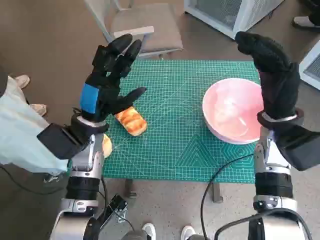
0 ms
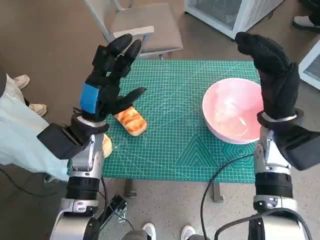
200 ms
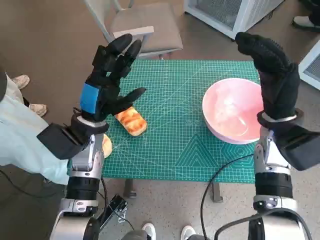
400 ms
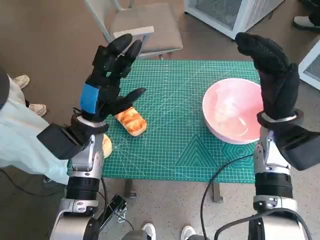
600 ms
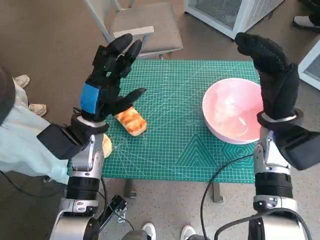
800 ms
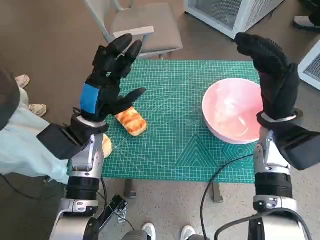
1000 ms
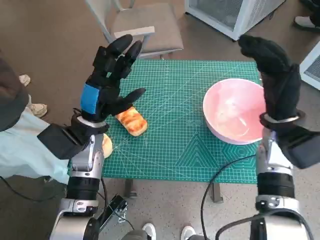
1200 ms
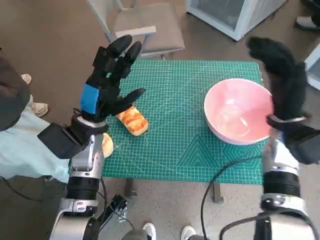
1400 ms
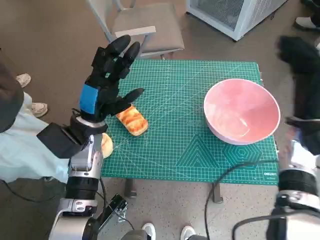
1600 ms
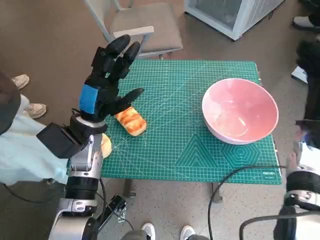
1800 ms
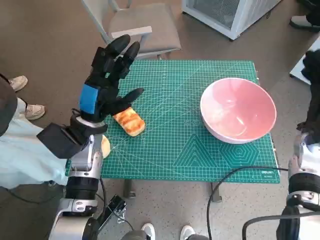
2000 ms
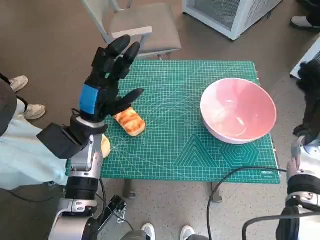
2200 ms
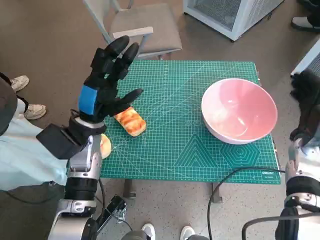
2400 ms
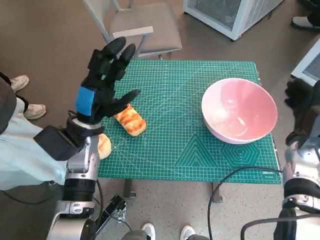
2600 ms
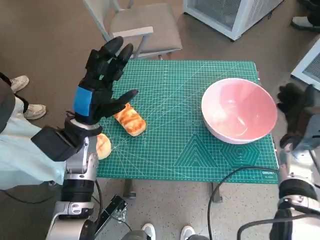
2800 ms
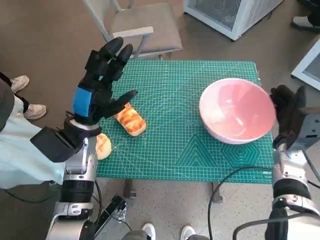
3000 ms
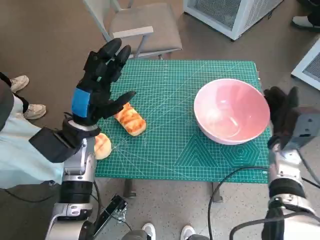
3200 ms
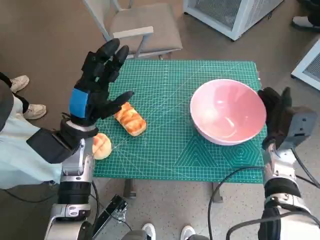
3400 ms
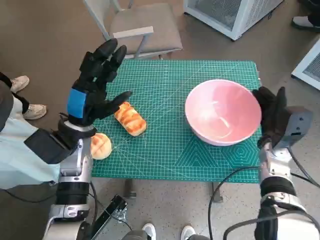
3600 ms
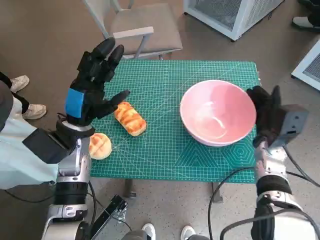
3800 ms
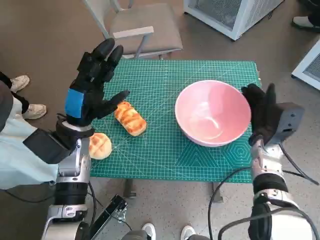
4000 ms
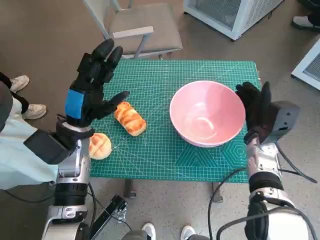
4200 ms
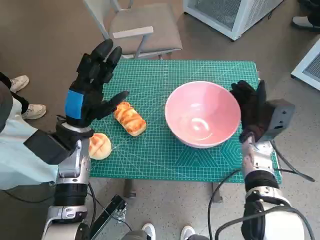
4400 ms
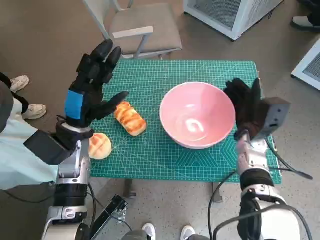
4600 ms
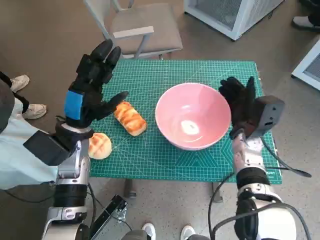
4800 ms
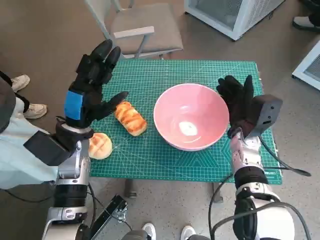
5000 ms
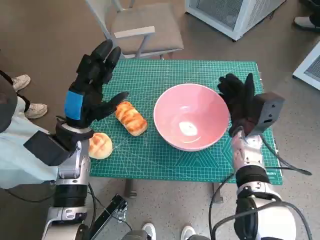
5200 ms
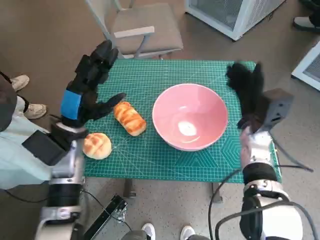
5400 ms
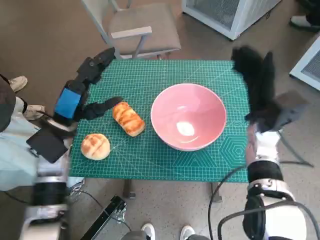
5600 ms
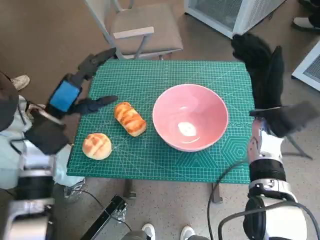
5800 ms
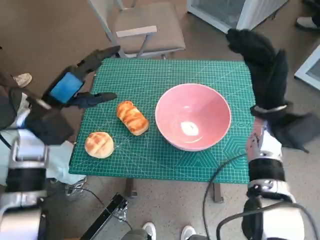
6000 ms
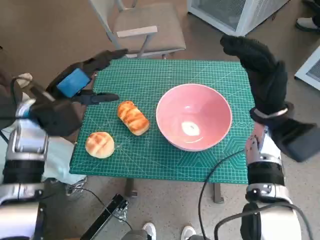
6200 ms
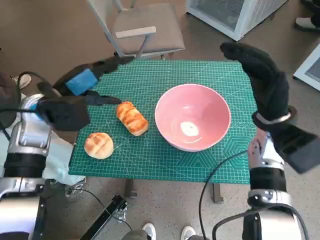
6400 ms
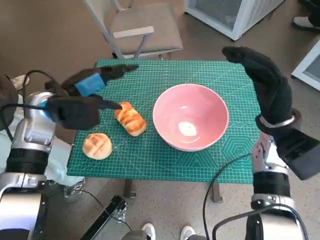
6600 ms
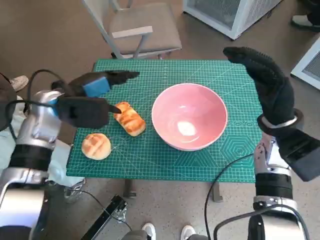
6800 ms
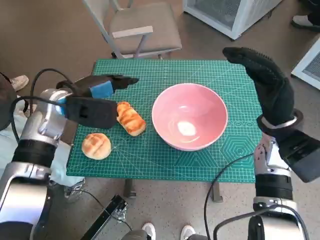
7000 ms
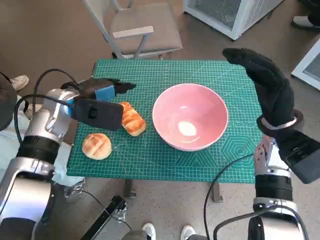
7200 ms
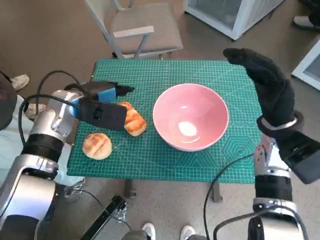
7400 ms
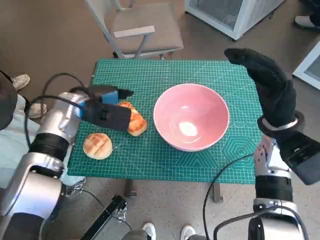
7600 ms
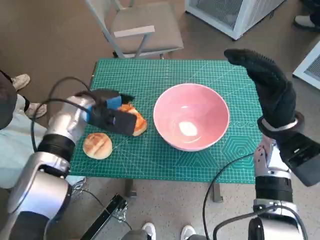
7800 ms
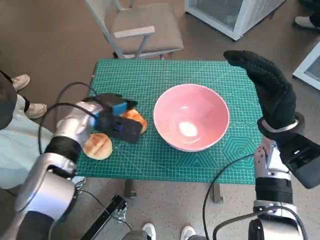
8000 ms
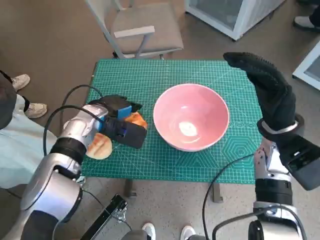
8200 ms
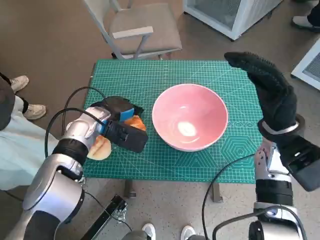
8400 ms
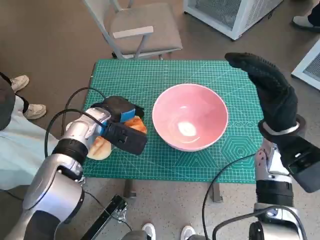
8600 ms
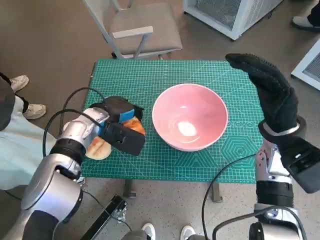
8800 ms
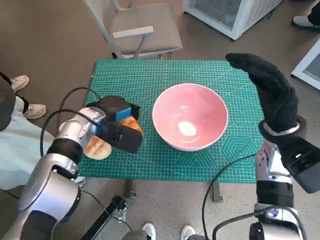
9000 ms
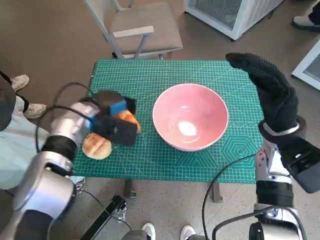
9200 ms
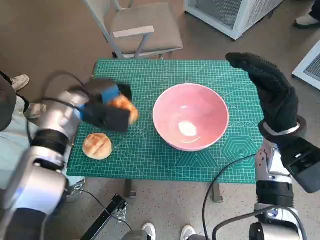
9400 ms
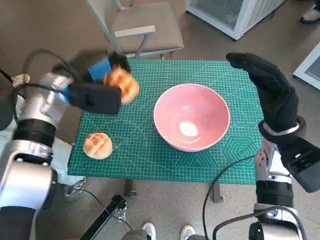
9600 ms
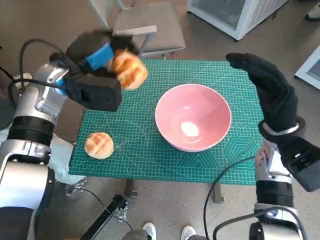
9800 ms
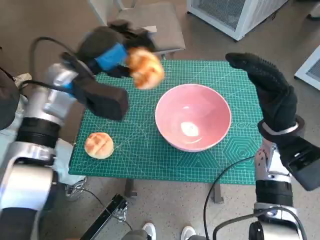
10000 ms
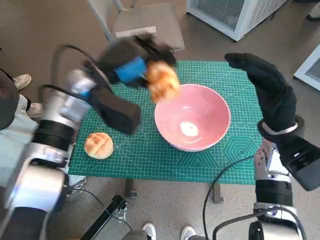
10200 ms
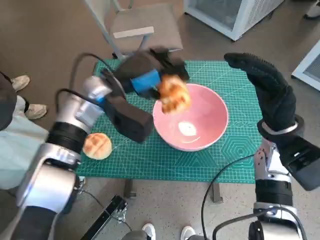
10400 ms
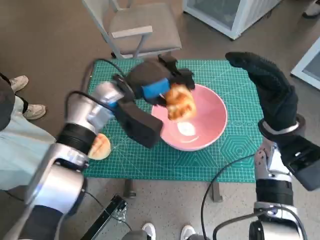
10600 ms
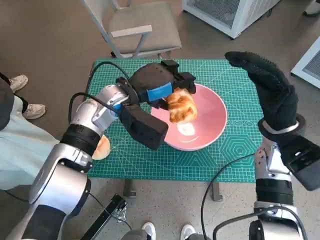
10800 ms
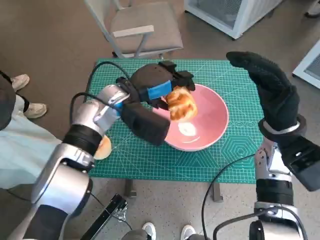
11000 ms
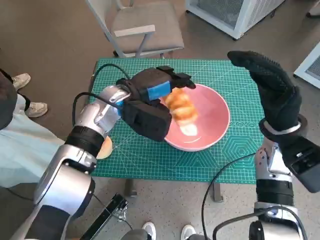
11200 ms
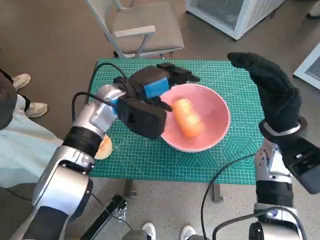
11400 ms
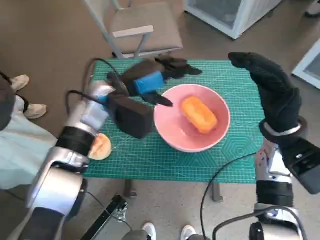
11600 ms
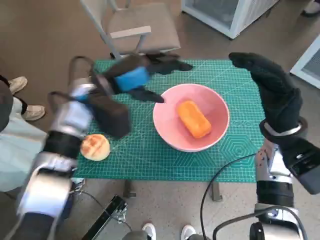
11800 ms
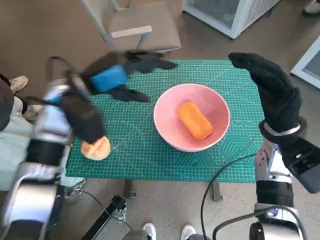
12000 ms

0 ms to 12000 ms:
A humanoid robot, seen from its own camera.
Task of the whole recording: Push the bowl to the center of the table and put the bread into the bowl.
Step, 0 ms to 5200 ms: Move the pink bowl to the center of table with right hand.
Step, 5400 ms to 8400 ms: Grasp the long bread with left hand.
Step, 8600 ms to 11200 ms: Place the long bread in pink bowl with left hand.
1600 ms to 3000 ms: The right hand shifts approximately 10 cm downward.
3000 ms to 4400 ms: The right hand shifts some 5 cm to the left.
4400 ms to 6000 ms: The right hand moves upward, about 10 cm, while the left hand ends up roughly 5 cm from where it was.
6000 ms to 7600 ms: The left hand is displaced forward by some 5 cm.
7600 ms to 9000 ms: The left hand changes place by some 5 cm.
9000 ms to 10400 ms: The left hand shifts some 10 cm upward.

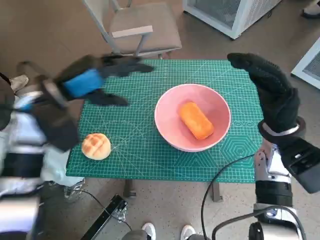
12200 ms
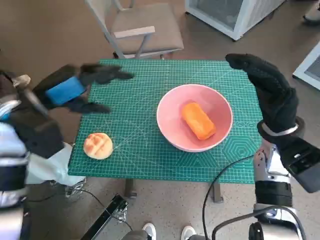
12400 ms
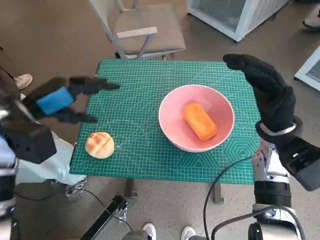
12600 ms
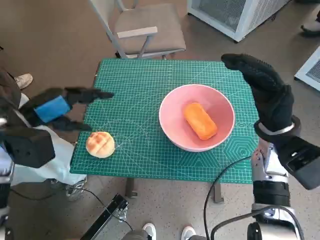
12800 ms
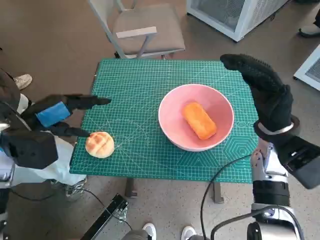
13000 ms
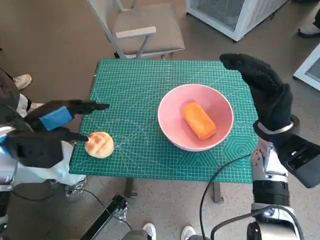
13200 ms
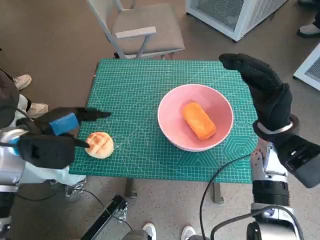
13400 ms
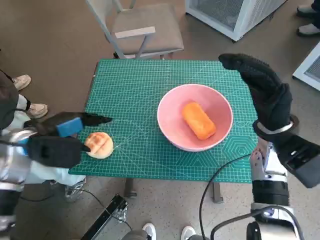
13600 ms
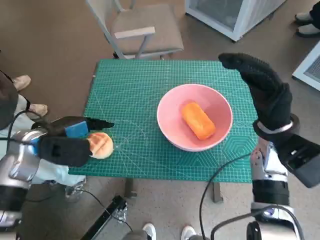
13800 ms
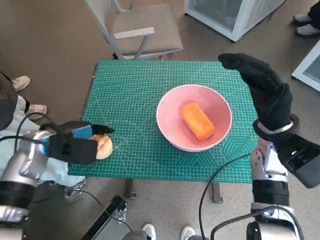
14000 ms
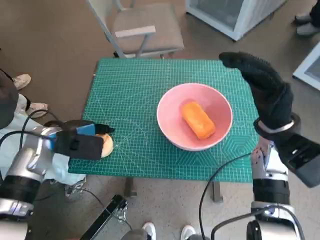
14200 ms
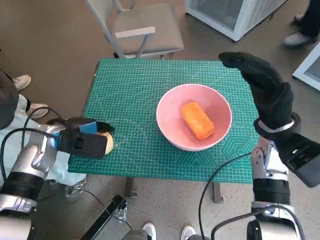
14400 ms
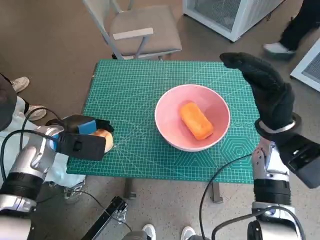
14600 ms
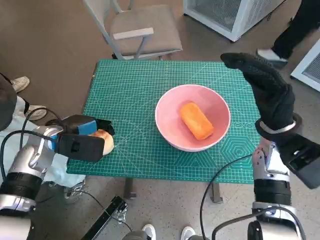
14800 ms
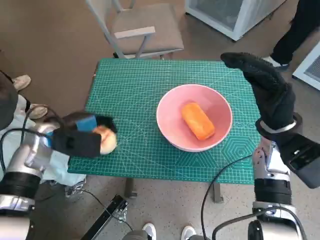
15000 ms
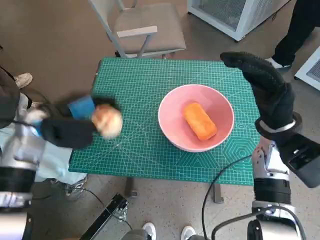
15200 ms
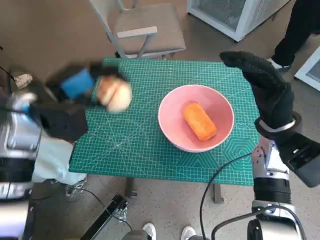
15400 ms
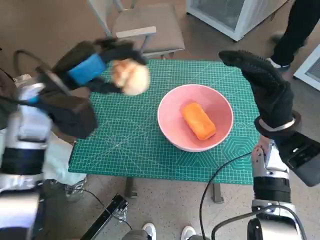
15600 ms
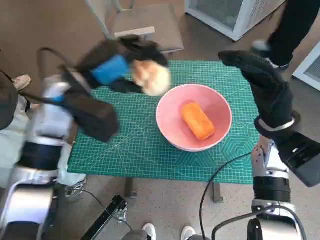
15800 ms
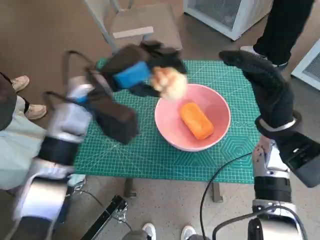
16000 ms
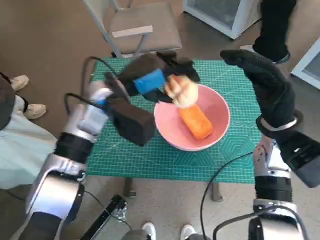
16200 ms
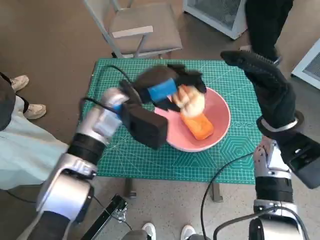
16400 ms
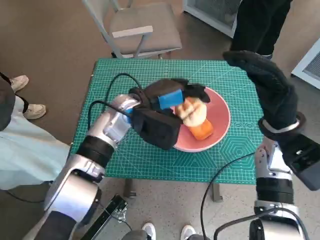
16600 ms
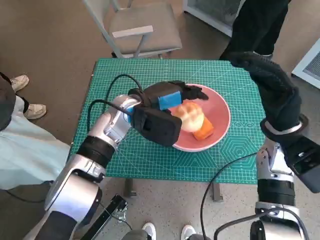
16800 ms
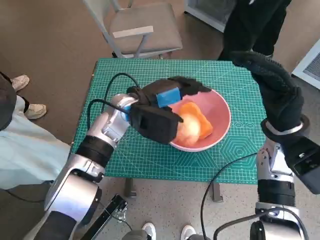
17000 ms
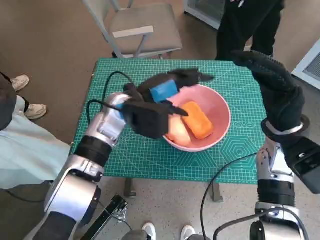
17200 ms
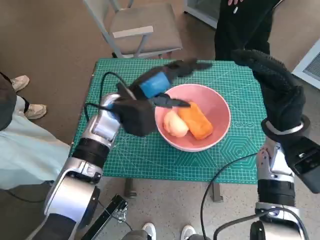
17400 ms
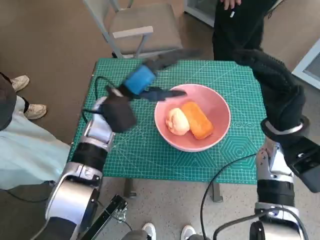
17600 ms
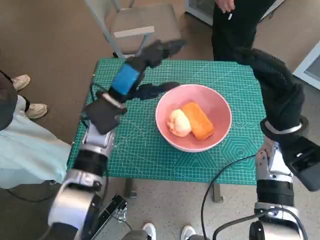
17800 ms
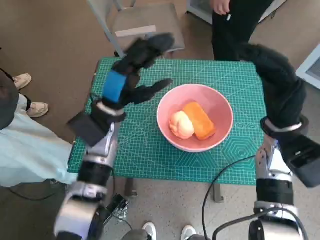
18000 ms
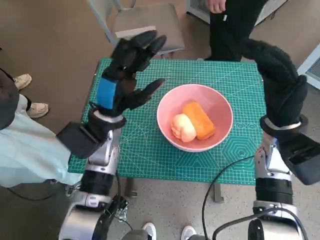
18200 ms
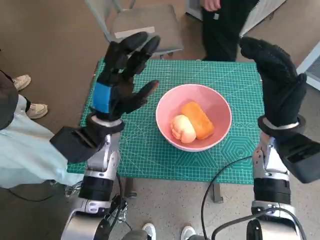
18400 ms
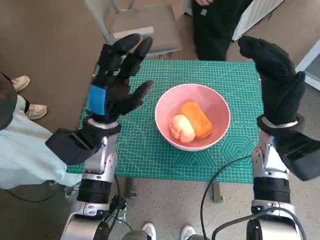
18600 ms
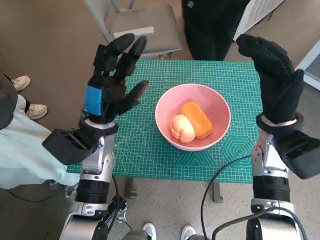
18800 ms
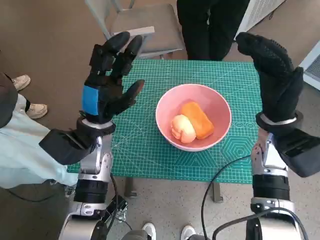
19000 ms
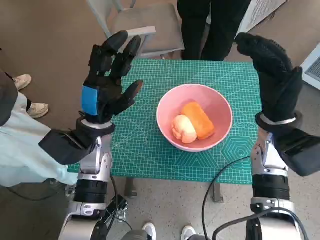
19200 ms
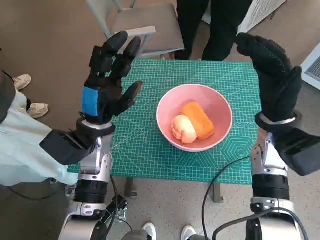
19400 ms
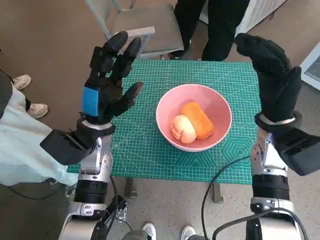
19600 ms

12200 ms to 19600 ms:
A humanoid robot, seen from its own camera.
Task of the whole recording: Push the bowl to the center of the table and put the bread into the bowl.
Step, 12200 ms to 14400 ms: Grasp the round bread with left hand.
Step, 14600 ms to 17000 ms: Place the round bread in pink bowl with left hand.
12200 ms to 13600 ms: The left hand is displaced downward and to the left by roughly 10 cm.
15200 ms to 16600 ms: The left hand heads to the right, covering approximately 15 cm.
16600 ms to 18200 ms: The left hand moves about 5 cm.

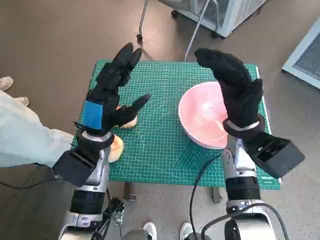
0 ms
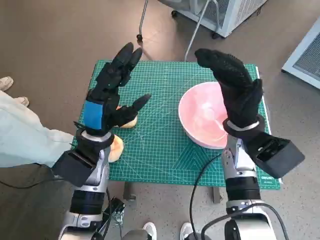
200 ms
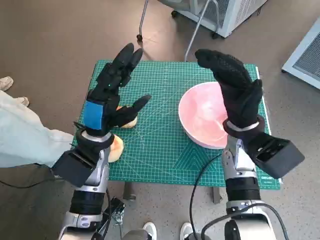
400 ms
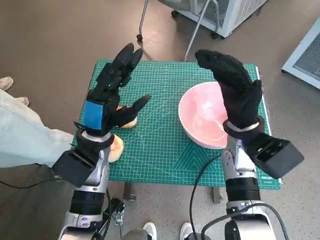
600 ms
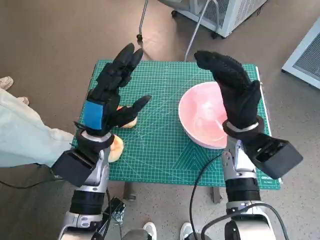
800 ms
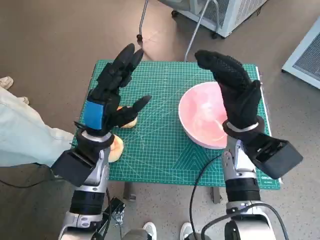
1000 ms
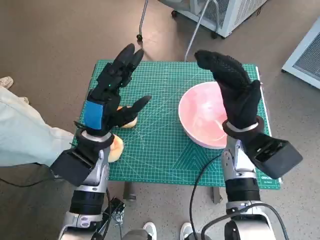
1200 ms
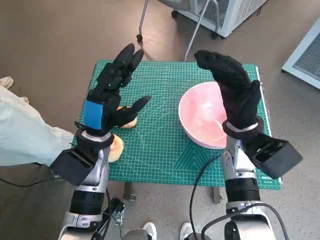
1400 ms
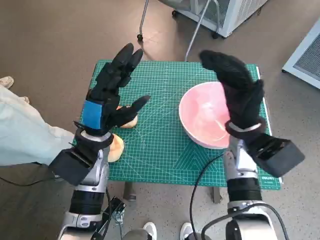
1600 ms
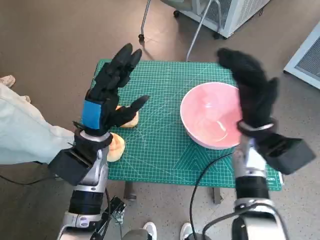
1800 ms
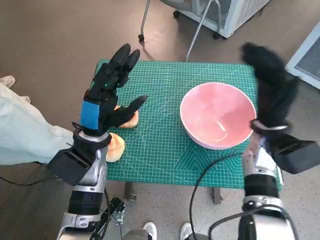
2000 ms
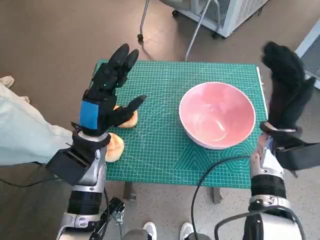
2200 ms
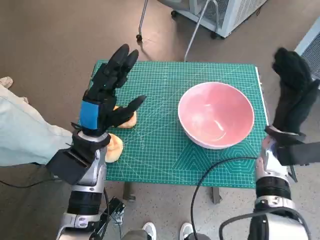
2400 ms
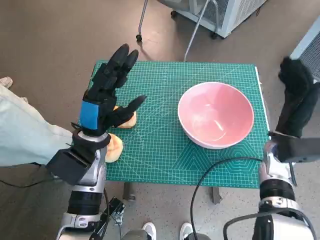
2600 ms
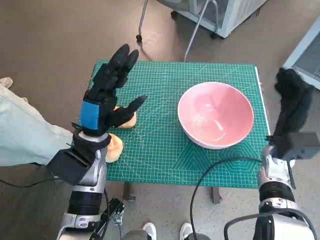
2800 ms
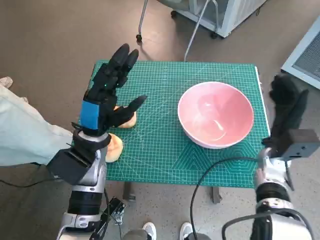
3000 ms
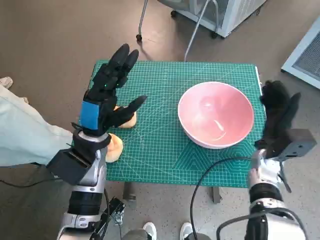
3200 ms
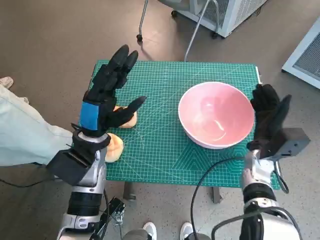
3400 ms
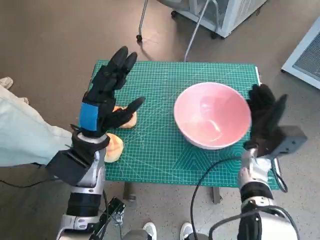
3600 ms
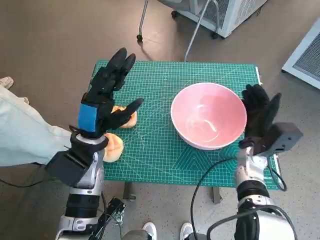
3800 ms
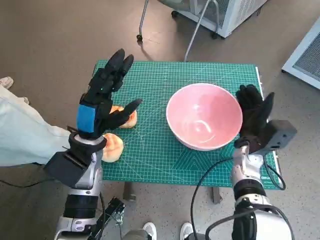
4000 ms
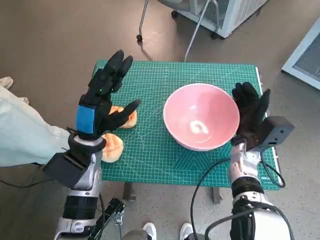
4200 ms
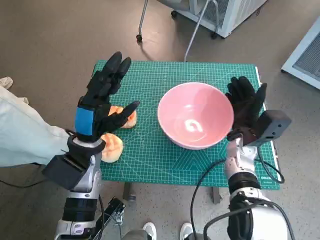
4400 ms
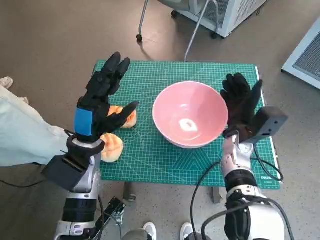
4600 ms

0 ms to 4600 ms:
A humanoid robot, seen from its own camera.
Task of the whole recording: Push the bowl to the center of the table and put the bread into the bowl.
1600 ms to 3000 ms: The right hand moves to the right and downward, approximately 10 cm.
3000 ms to 4600 ms: The right hand heads to the left, covering approximately 10 cm.
